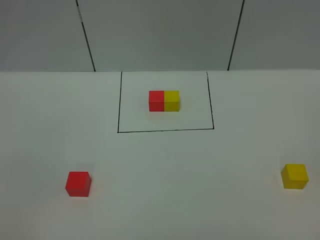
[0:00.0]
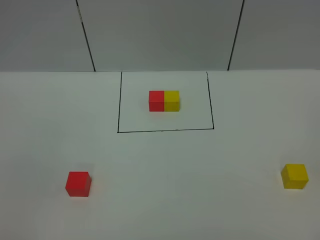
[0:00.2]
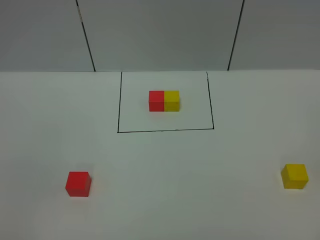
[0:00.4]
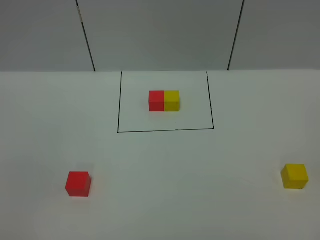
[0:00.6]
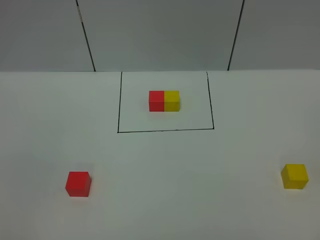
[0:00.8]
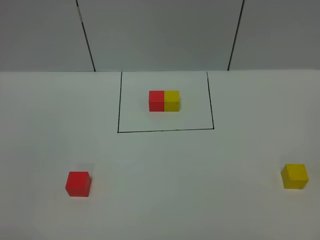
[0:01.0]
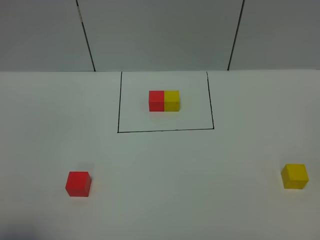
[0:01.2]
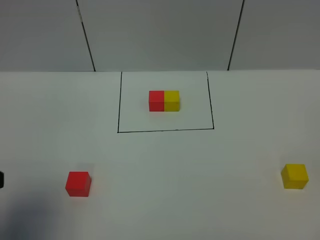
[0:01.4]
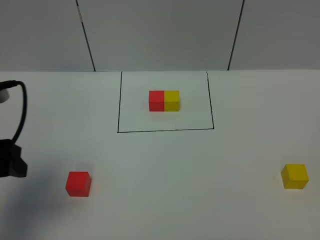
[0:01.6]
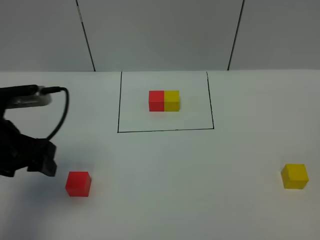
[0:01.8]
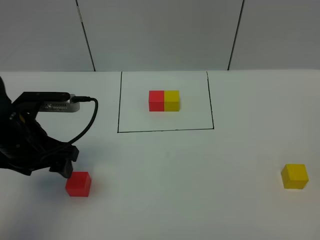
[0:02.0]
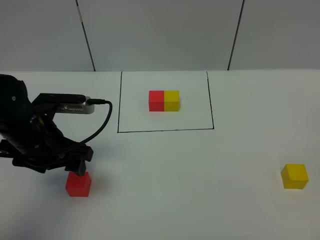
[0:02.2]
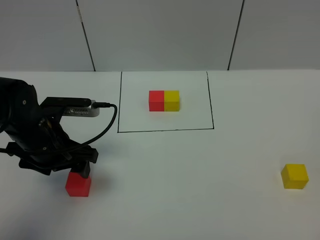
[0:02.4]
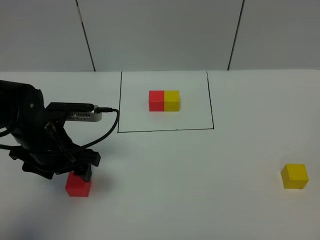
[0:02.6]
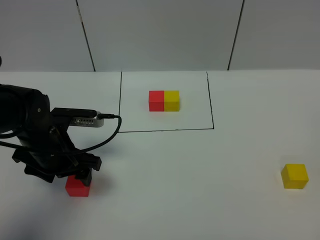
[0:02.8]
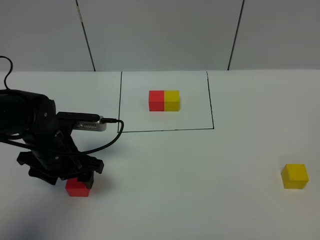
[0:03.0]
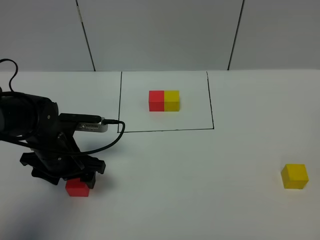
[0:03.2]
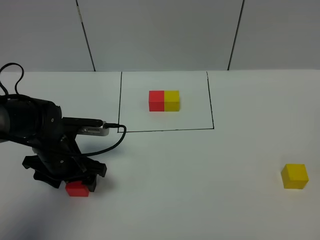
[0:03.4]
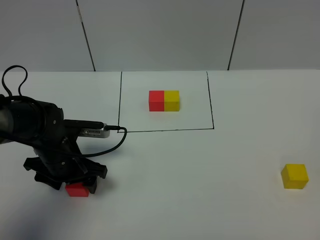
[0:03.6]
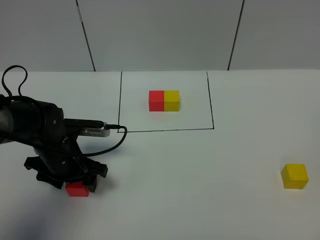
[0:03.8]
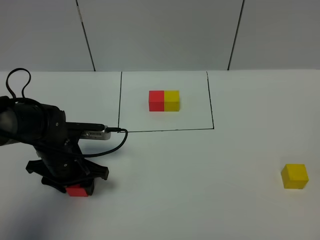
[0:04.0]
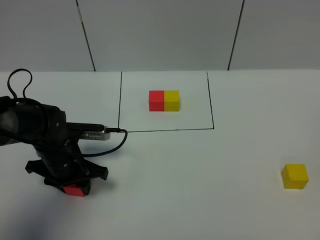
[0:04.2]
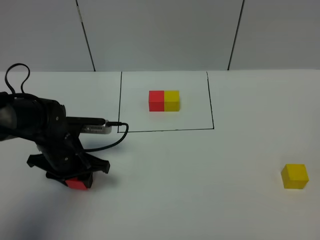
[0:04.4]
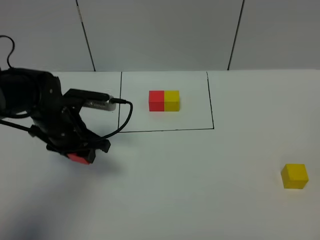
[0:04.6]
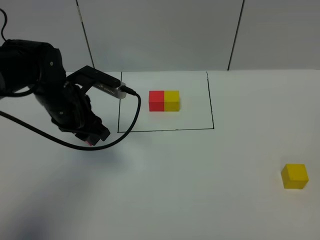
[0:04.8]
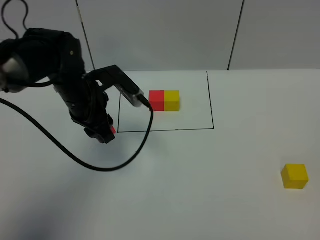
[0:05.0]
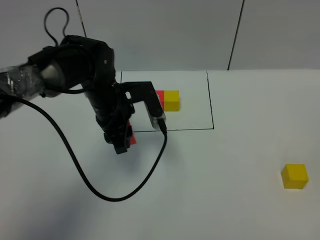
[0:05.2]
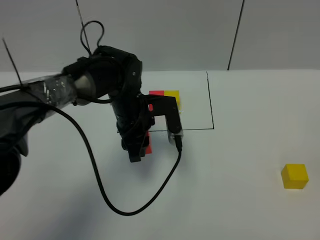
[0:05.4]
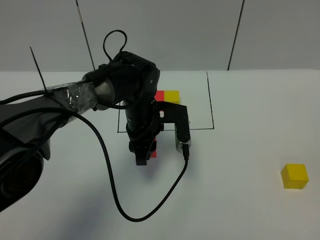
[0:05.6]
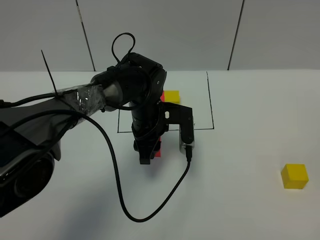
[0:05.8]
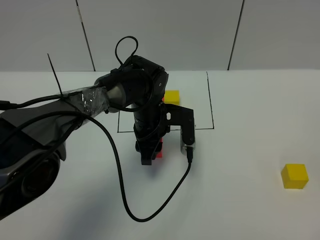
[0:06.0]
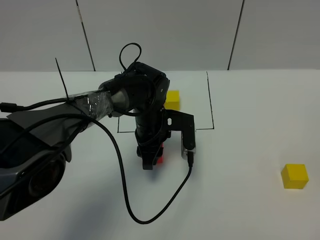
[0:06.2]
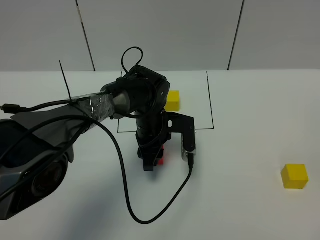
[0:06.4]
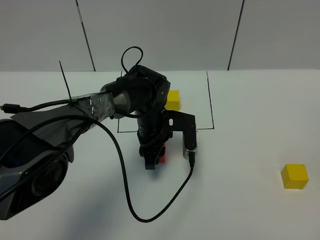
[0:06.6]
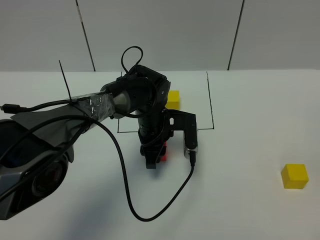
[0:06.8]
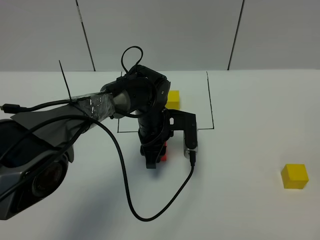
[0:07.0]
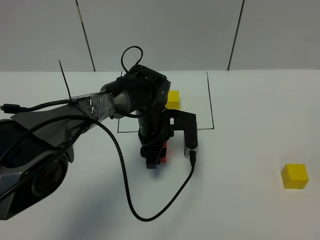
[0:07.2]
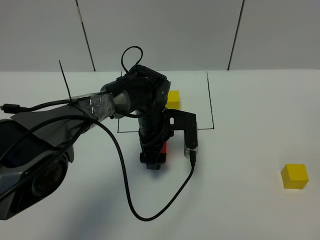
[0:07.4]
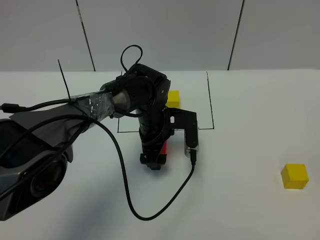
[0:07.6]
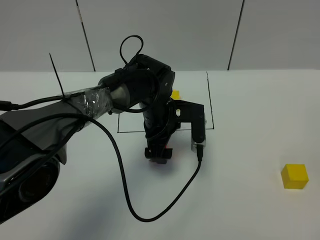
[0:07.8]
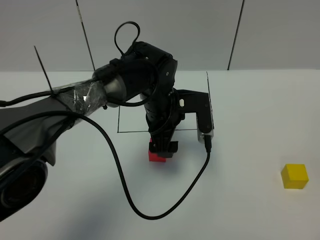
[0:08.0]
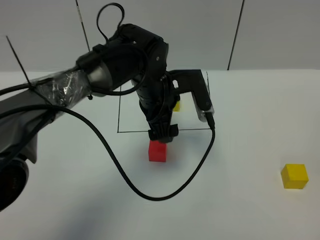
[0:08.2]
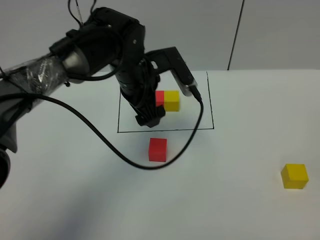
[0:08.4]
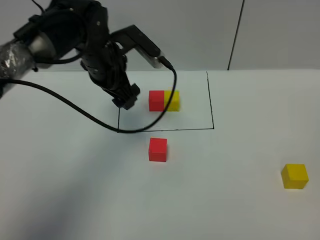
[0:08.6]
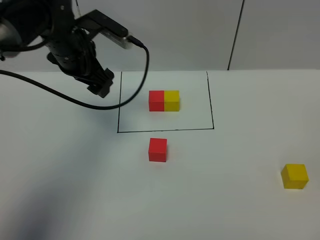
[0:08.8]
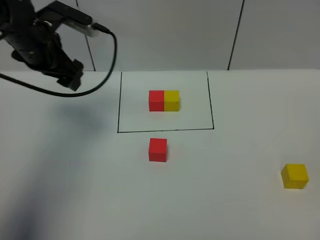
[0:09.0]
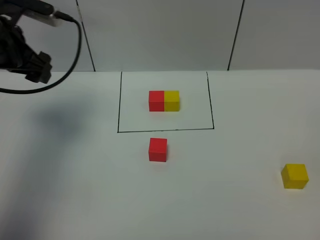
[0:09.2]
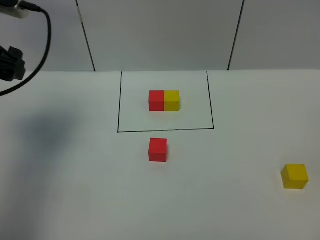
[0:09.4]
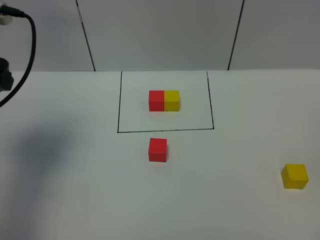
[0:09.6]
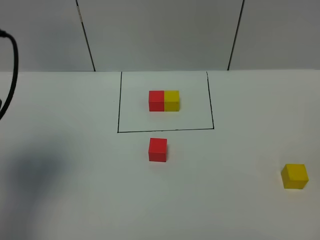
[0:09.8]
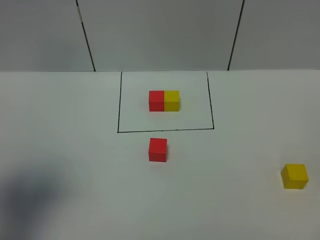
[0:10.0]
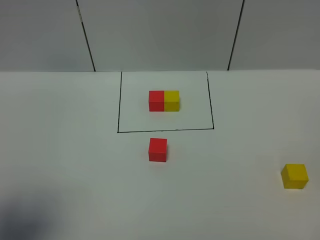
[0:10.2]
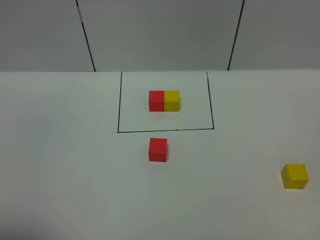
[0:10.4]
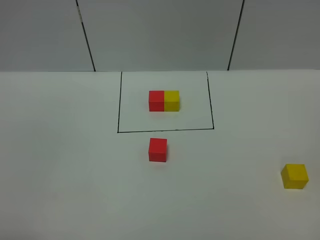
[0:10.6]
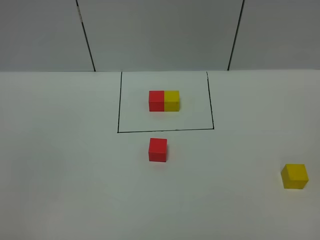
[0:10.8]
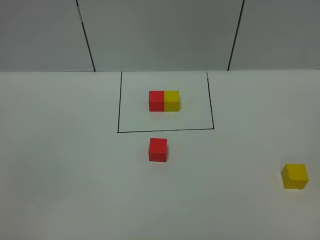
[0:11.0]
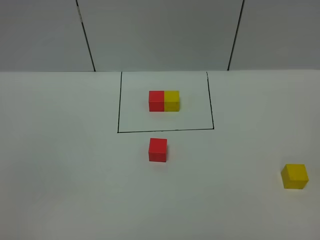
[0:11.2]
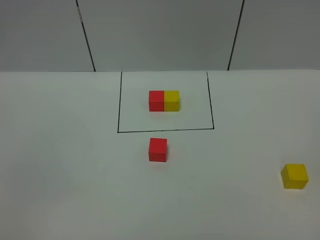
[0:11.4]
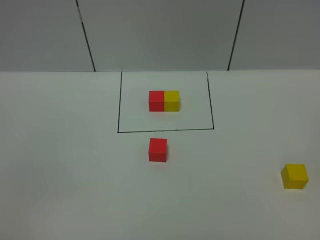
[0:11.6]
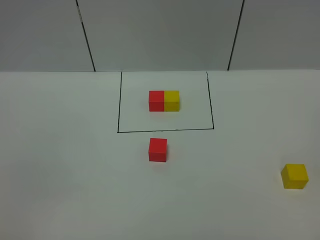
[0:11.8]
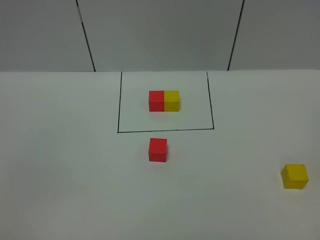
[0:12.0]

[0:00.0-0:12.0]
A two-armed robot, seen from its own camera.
Task of the whole recording: According to the building block template in front, assemble the scattered blocks together.
Step, 0:01.4 to 0:07.6: Put the red cube in the center of the table.
0:00.0 to 0:01.6: The left gripper is displaced forward by roughly 25 cm.
0:01.6 to 0:03.0: The left gripper travels downward, forward and to the right by roughly 20 cm.
0:03.0 to 0:04.4: The left gripper closes up.
0:04.4 to 0:06.0: The left gripper heads to the right and forward, covering approximately 20 cm.
0:06.0 to 0:07.6: The left gripper opens up.
0:07.6 to 0:09.0: The left gripper heads to the left and upward, covering about 25 cm.
0:09.0 to 0:10.4: The left gripper is displaced backward by approximately 35 cm.

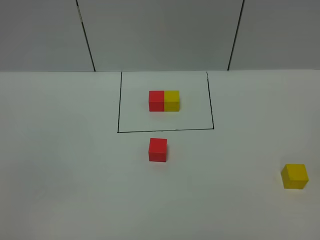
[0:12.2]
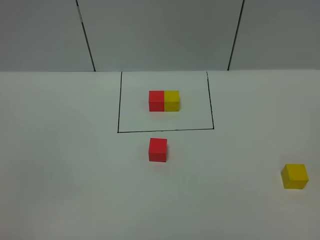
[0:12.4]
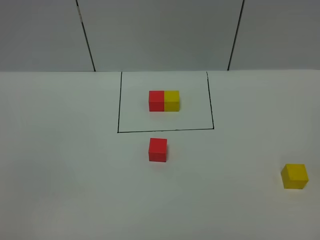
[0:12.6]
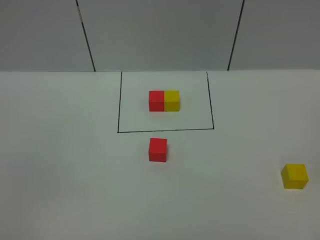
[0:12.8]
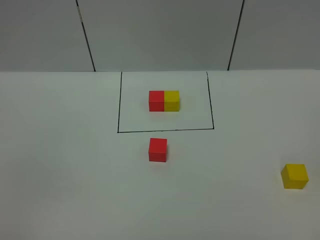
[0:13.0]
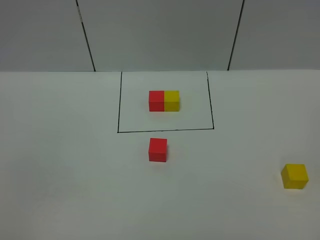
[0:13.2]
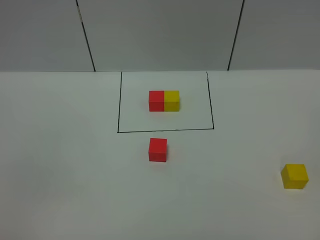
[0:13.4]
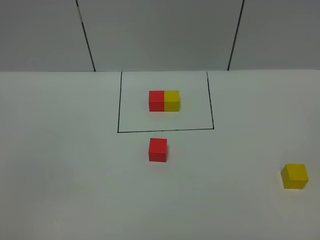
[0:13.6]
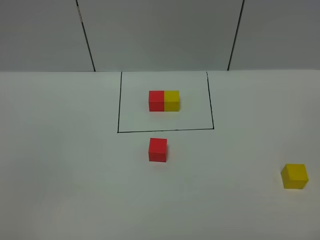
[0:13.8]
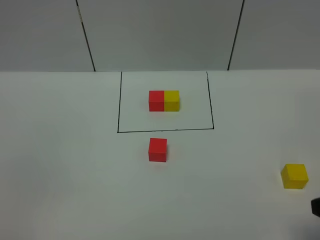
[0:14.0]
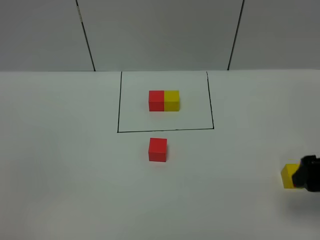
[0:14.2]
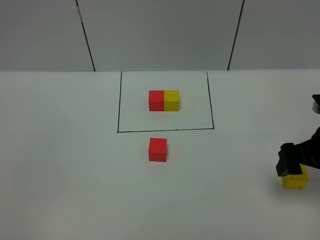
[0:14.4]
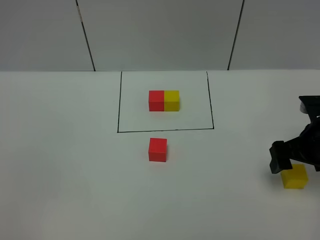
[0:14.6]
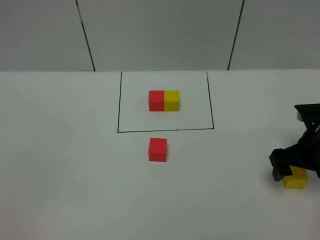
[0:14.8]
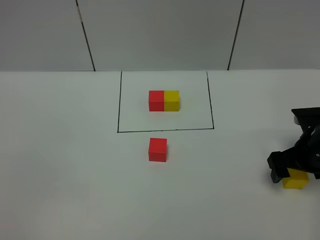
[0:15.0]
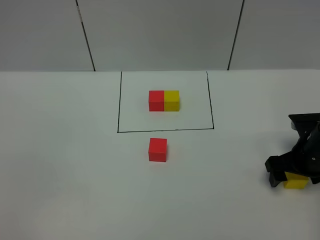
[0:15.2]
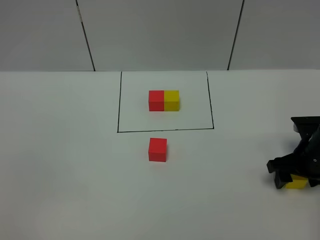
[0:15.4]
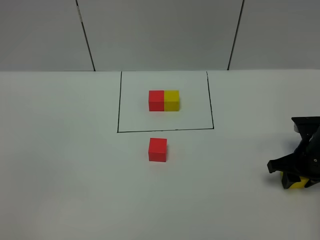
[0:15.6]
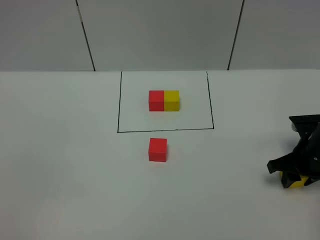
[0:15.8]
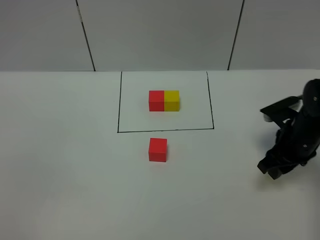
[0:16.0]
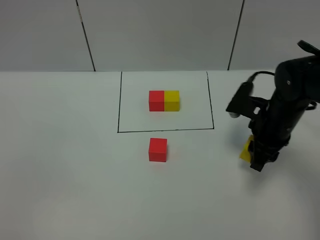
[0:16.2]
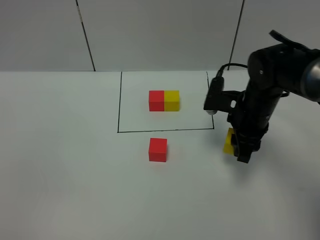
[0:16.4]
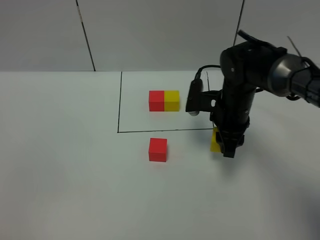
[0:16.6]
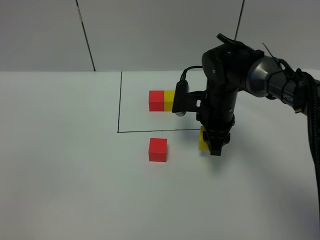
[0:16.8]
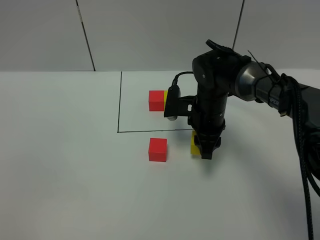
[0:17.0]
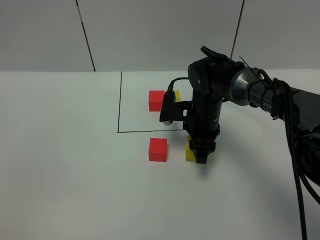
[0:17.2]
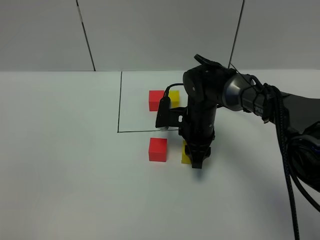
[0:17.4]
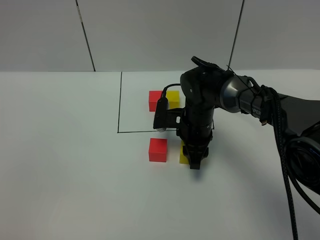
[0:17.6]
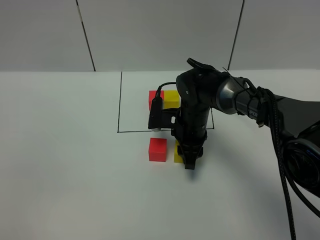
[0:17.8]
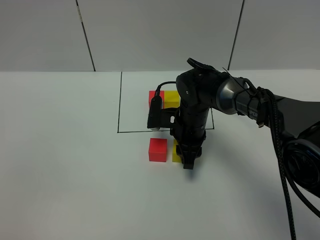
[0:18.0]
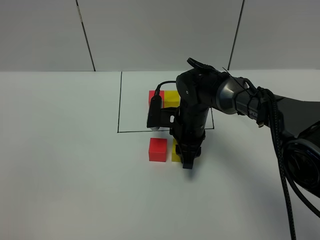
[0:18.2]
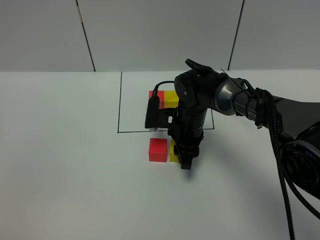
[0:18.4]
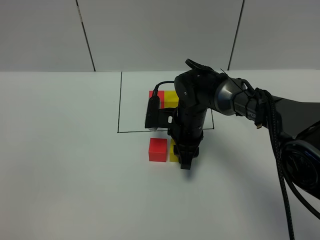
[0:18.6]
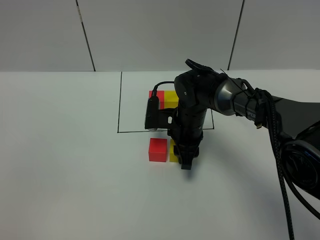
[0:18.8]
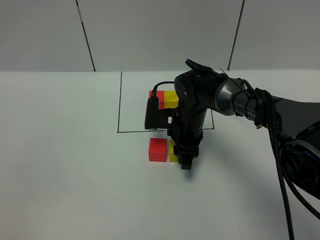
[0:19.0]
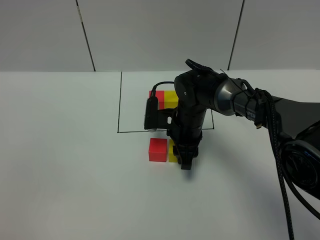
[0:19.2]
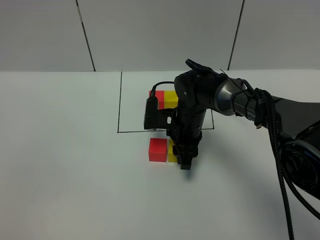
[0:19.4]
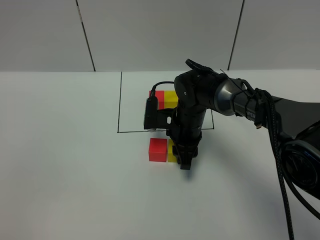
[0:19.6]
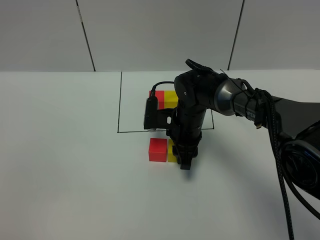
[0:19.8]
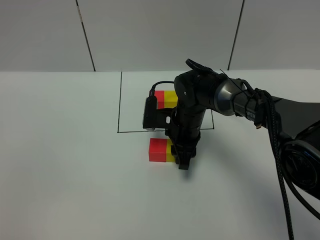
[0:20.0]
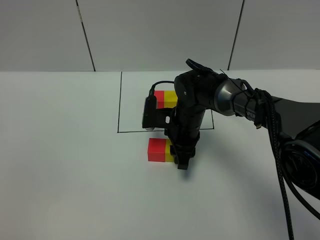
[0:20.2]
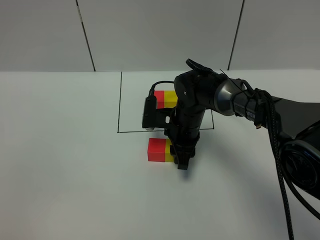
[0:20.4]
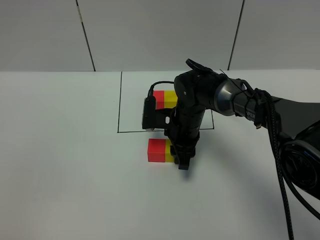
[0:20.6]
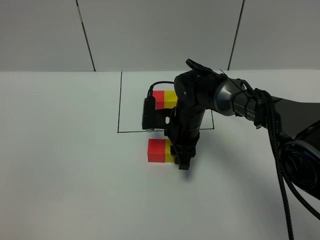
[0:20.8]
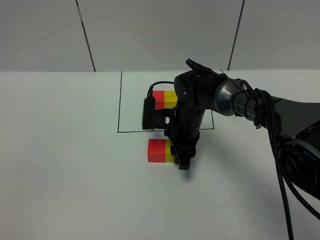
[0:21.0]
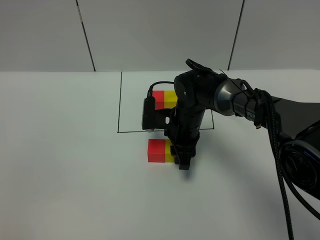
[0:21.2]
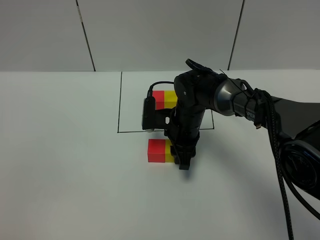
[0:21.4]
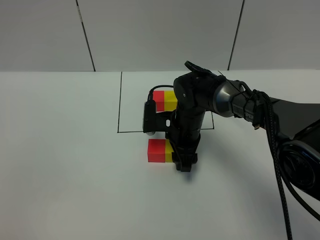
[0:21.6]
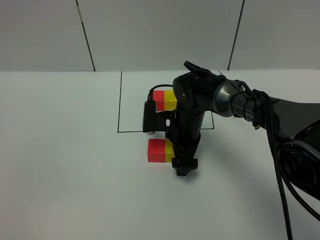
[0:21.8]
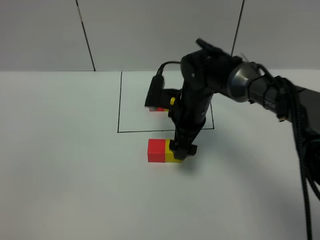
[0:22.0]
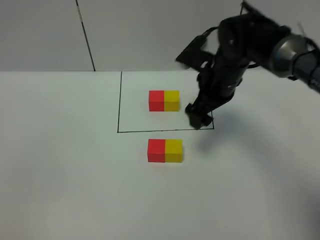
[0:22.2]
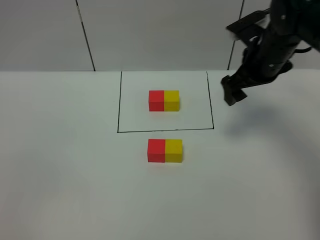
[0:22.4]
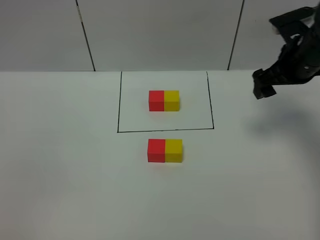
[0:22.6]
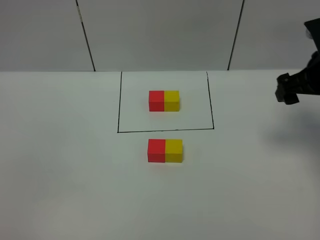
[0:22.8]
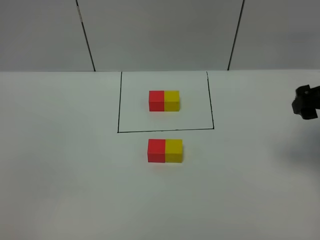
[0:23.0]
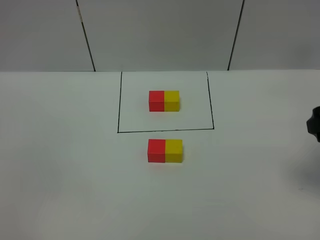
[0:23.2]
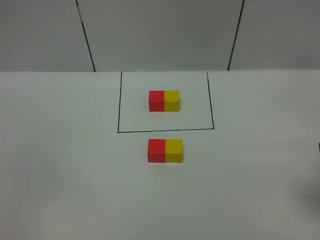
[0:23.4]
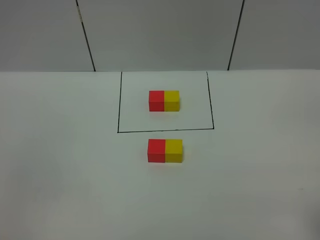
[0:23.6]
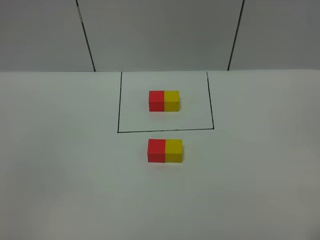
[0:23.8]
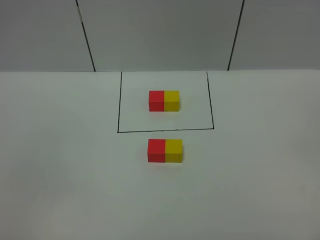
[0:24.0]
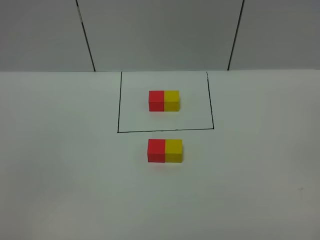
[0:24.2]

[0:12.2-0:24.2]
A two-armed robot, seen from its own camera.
Task of the whole recording: According to the building block template in front, assemble the scattered blocks together.
Step, 0:12.2 to 0:22.0: Put the yellow cube on the right of the red cube.
0:13.8 to 0:15.2: The right gripper travels forward and downward by roughly 30 cm.
0:15.2 to 0:16.6: The right gripper heads to the left and forward, covering about 20 cm, and closes.
0:16.6 to 0:18.2: The right gripper moves to the left and downward, approximately 10 cm.
0:18.2 to 0:21.2: Both grippers stay put.
0:21.2 to 0:22.6: The right gripper heads to the right and upward, covering some 25 cm, and opens its fingers.
0:22.6 to 0:24.2: The right gripper is displaced backward by some 40 cm.
